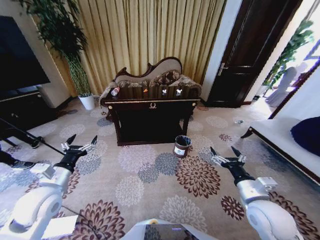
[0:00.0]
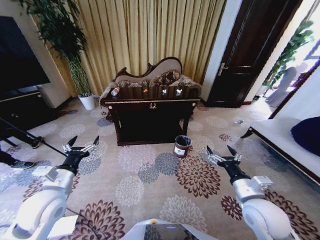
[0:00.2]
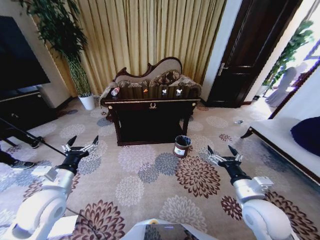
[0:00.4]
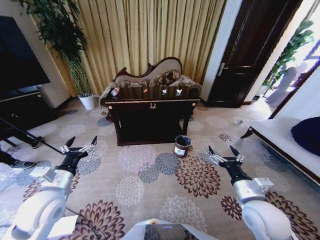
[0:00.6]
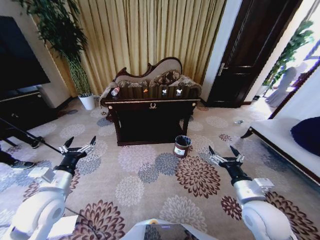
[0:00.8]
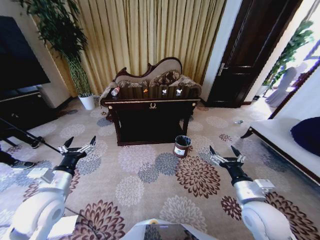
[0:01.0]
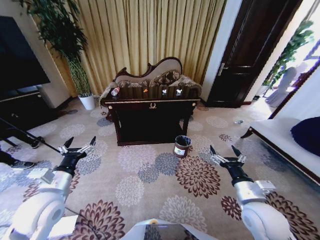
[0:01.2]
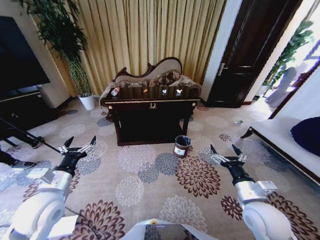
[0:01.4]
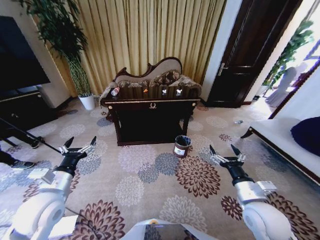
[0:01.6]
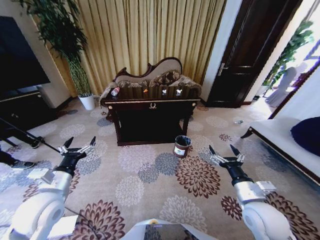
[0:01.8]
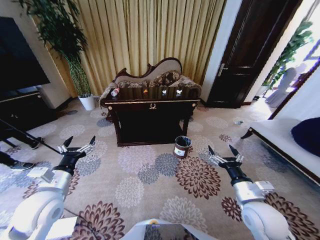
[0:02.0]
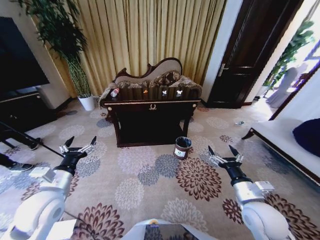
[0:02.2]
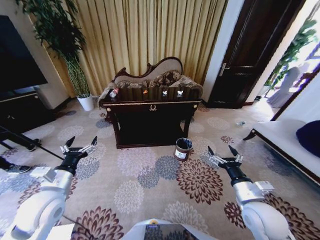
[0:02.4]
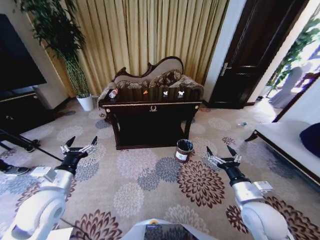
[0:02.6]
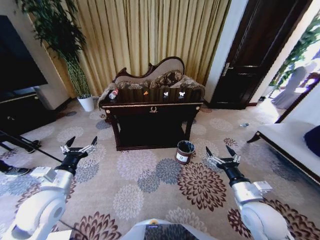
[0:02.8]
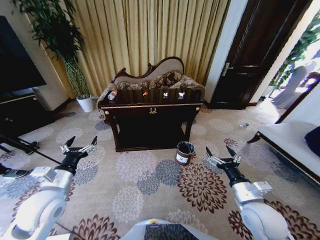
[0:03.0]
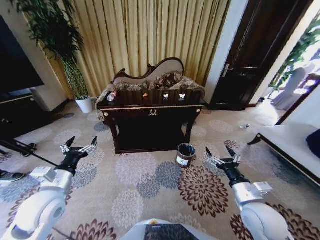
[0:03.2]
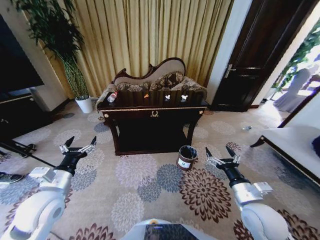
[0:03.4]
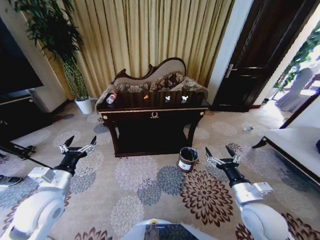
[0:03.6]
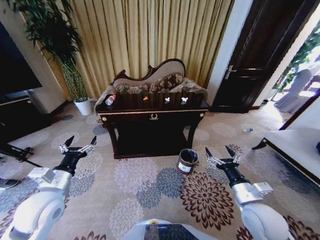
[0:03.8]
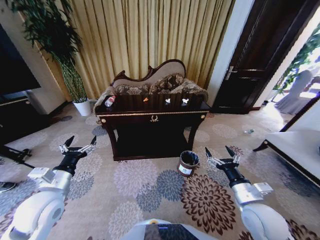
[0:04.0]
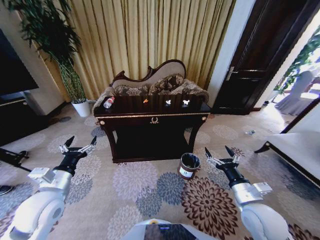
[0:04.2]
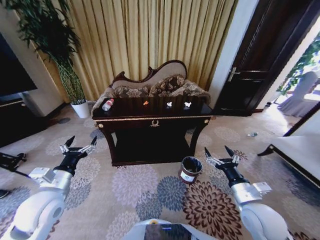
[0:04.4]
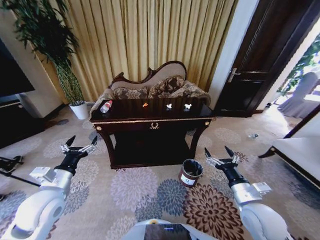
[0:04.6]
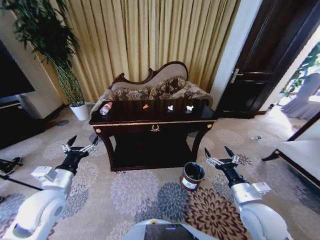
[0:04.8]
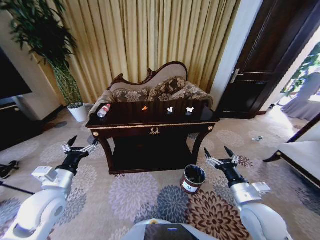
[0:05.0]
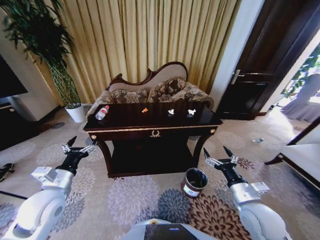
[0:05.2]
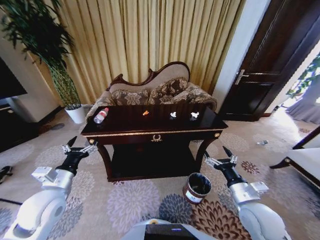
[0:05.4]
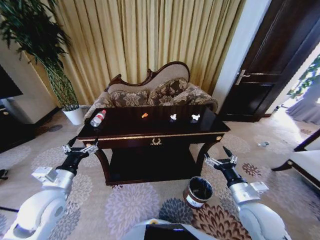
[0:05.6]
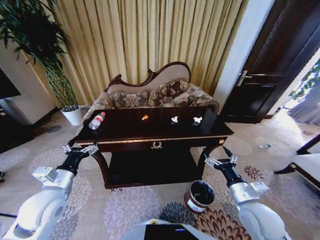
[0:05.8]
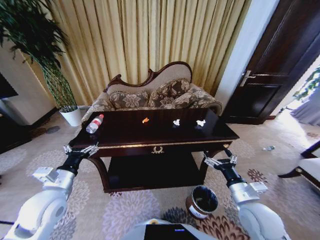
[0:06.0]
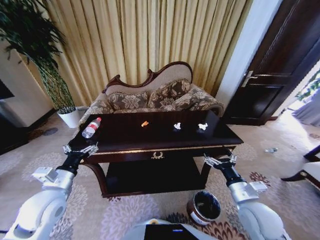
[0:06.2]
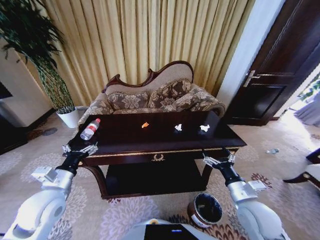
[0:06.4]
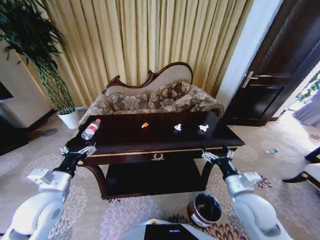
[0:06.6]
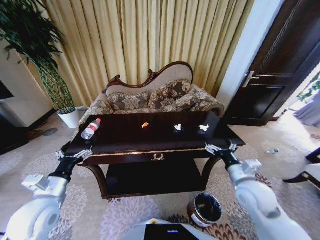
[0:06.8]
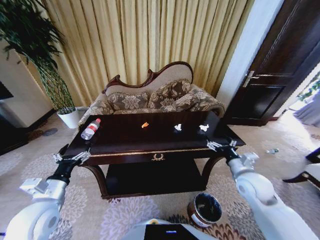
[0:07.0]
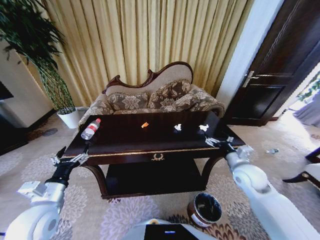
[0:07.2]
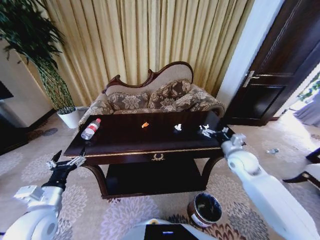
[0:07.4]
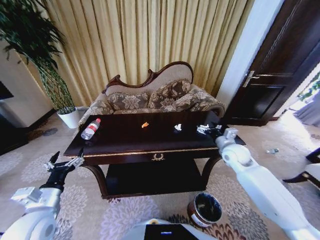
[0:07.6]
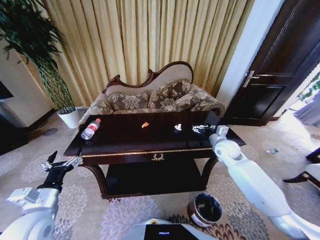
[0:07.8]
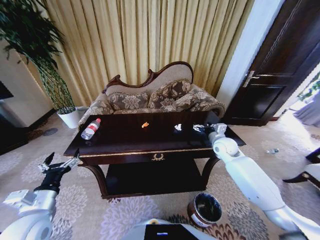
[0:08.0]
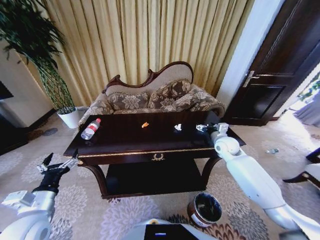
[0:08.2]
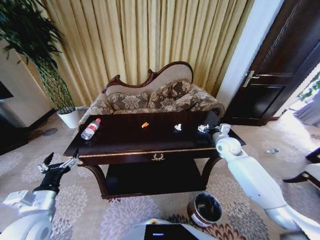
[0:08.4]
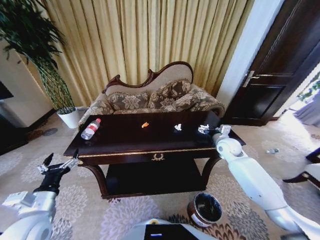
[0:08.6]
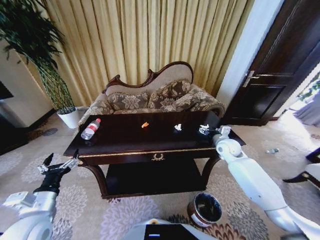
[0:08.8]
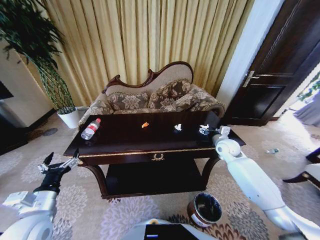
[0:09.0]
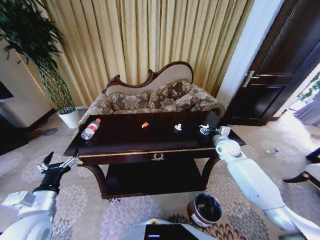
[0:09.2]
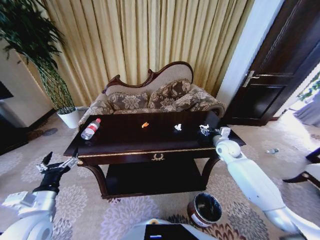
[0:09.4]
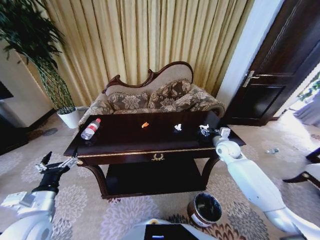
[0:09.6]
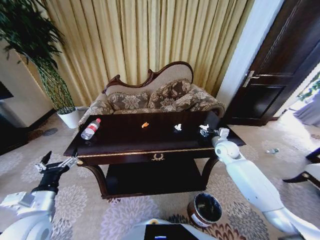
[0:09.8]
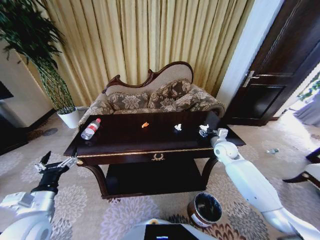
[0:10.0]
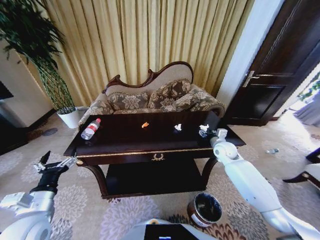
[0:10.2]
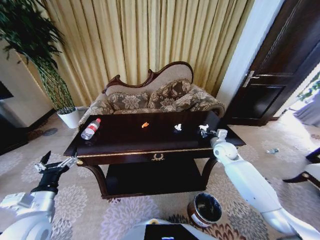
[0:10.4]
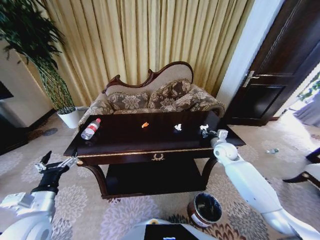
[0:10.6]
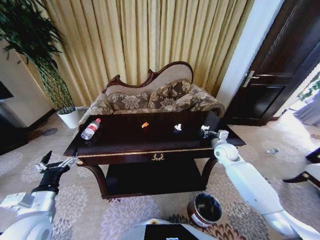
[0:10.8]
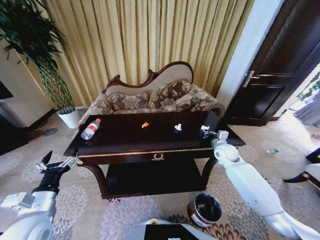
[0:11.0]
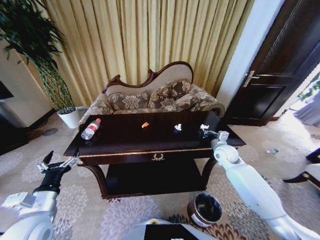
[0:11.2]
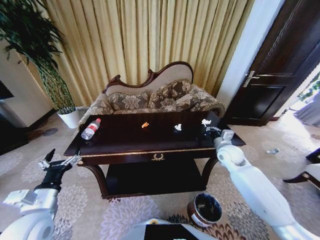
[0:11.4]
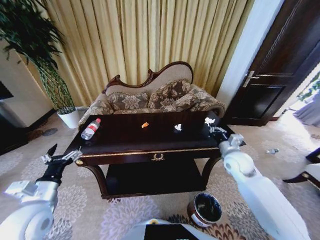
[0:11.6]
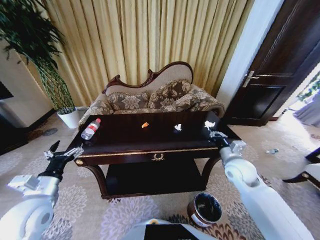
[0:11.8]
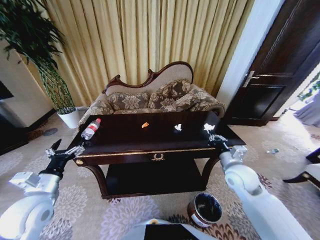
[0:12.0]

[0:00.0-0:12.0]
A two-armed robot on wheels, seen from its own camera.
Task of the whole recording: Move to the front of the table and place the trash on the table into the trash bin.
0:06.0 to 0:07.6: The right gripper travels forward by some 25 cm. The left gripper moves backward, some 5 cm.
0:07.6 to 0:09.0: The right gripper moves about 5 cm.
0:09.0 to 0:10.4: The right gripper closes up.
0:10.4 to 0:12.0: The right gripper heads backward, covering some 15 cm, and closes up; the left gripper moves some 5 cm.

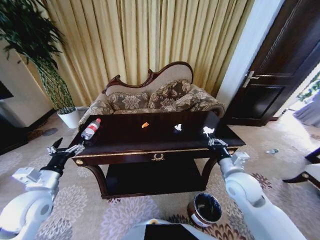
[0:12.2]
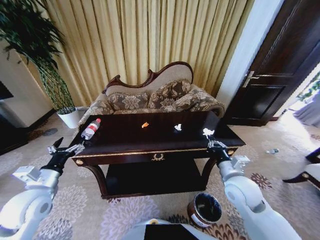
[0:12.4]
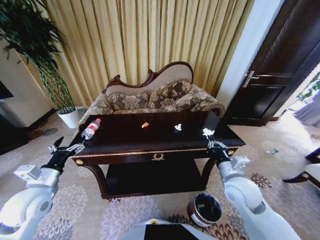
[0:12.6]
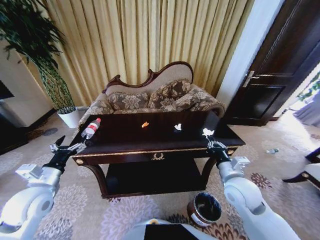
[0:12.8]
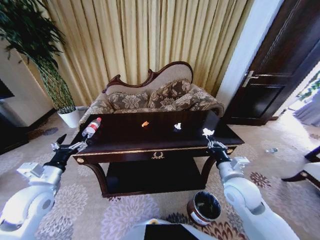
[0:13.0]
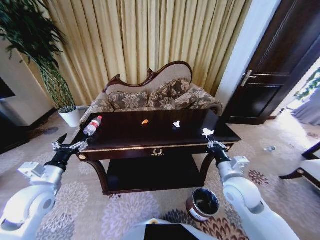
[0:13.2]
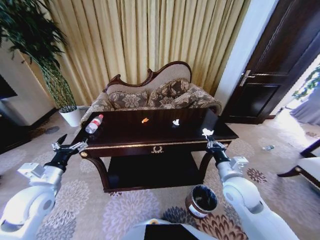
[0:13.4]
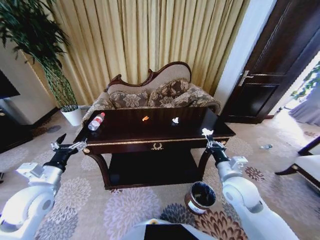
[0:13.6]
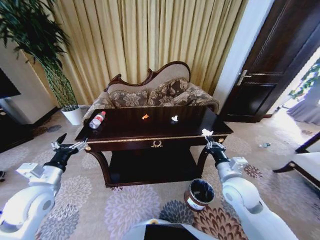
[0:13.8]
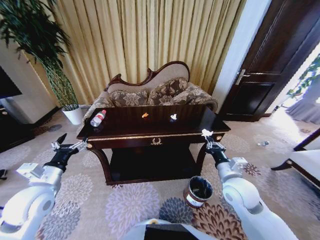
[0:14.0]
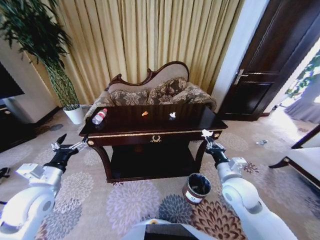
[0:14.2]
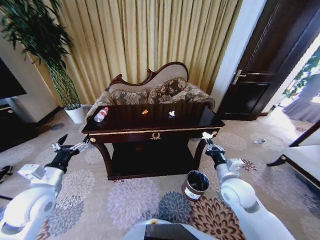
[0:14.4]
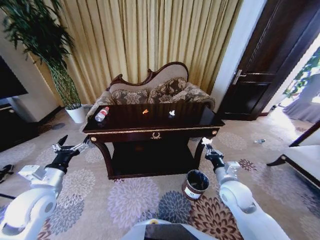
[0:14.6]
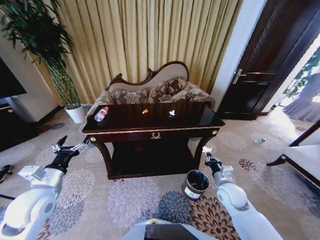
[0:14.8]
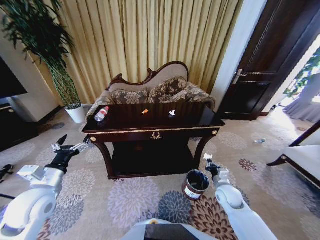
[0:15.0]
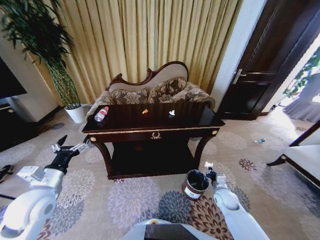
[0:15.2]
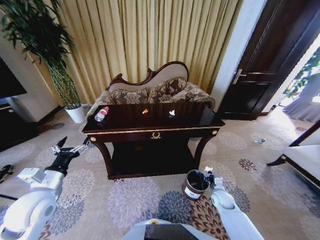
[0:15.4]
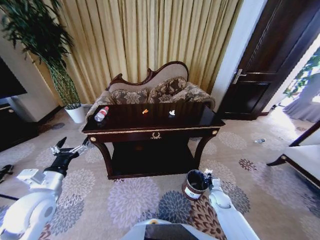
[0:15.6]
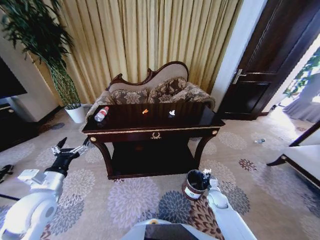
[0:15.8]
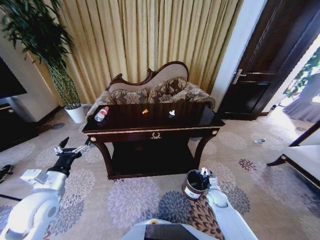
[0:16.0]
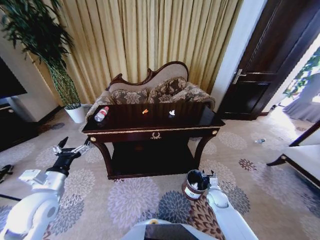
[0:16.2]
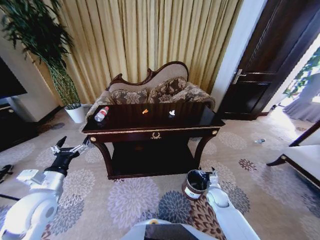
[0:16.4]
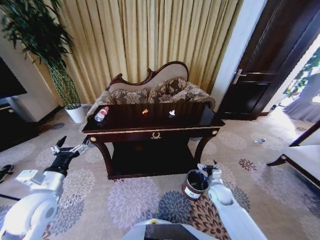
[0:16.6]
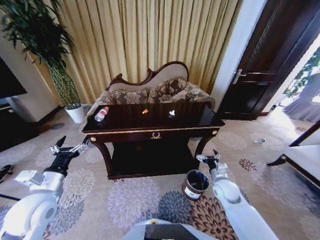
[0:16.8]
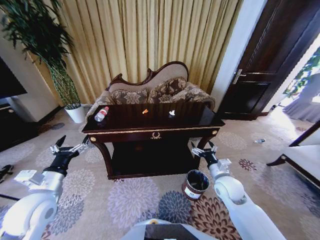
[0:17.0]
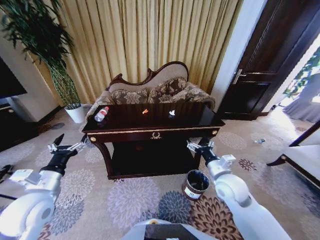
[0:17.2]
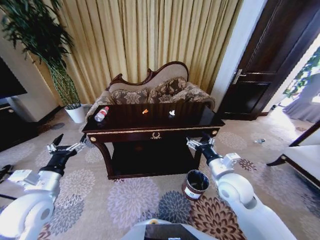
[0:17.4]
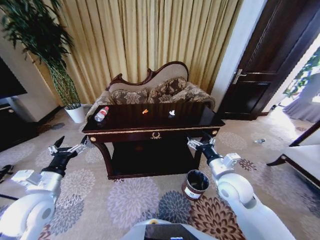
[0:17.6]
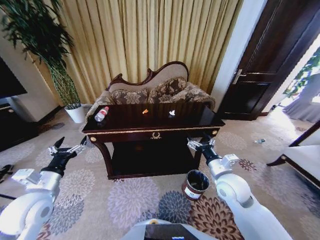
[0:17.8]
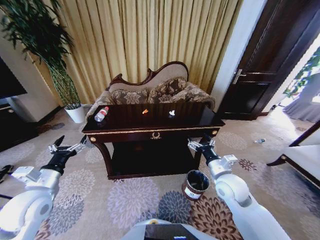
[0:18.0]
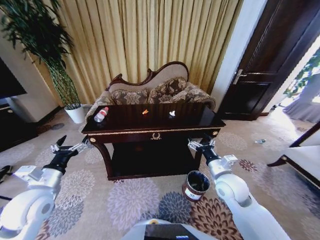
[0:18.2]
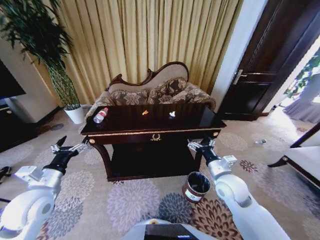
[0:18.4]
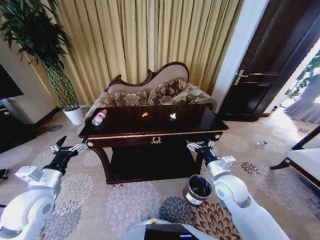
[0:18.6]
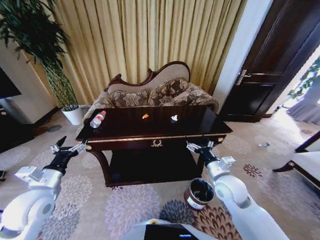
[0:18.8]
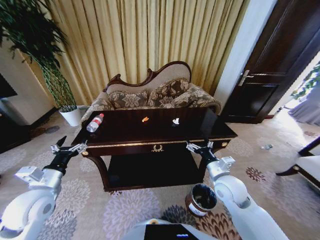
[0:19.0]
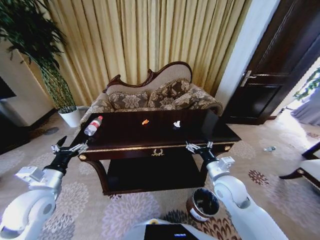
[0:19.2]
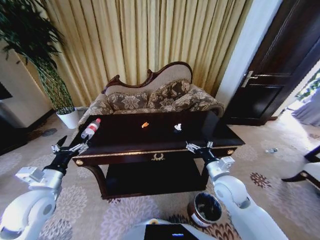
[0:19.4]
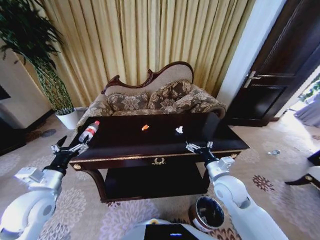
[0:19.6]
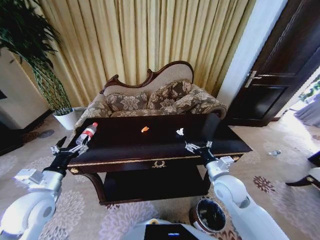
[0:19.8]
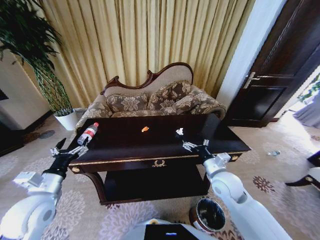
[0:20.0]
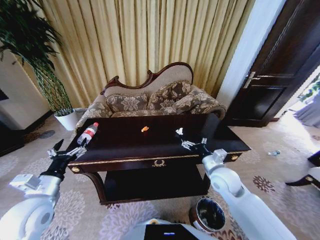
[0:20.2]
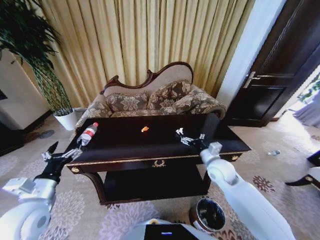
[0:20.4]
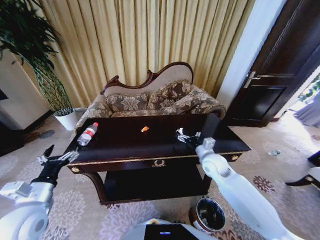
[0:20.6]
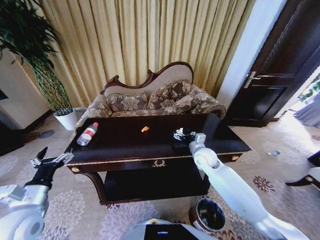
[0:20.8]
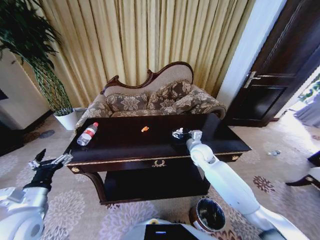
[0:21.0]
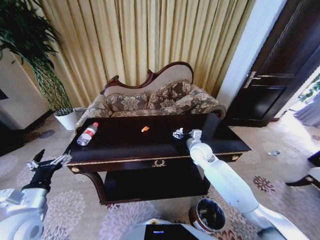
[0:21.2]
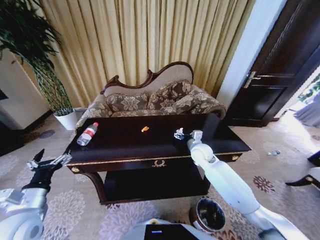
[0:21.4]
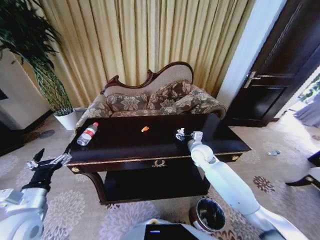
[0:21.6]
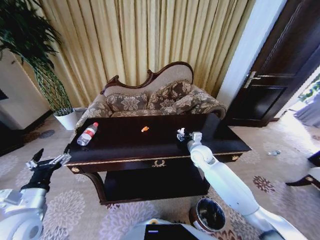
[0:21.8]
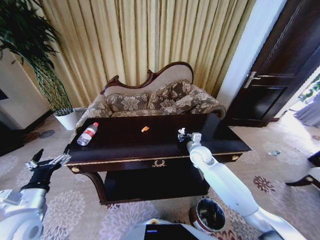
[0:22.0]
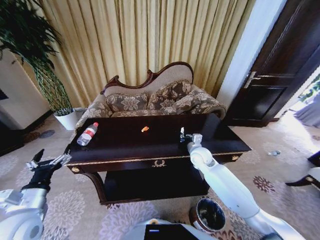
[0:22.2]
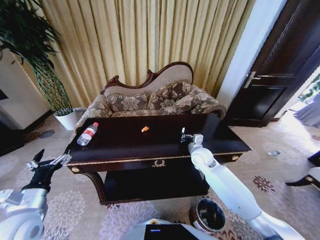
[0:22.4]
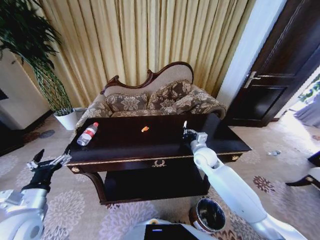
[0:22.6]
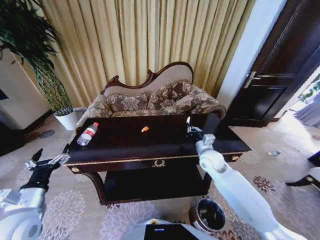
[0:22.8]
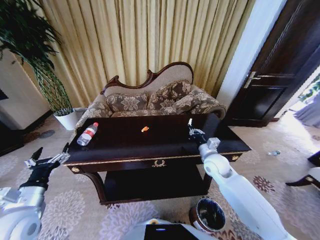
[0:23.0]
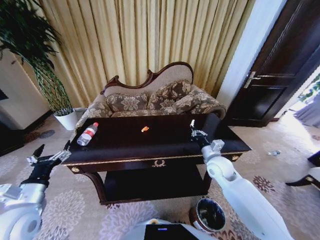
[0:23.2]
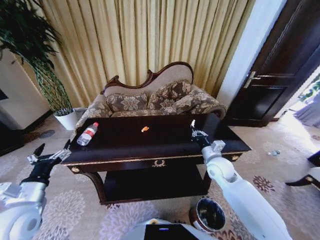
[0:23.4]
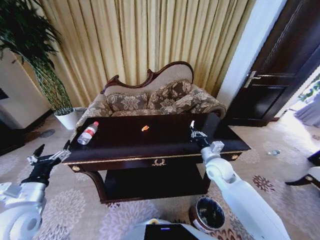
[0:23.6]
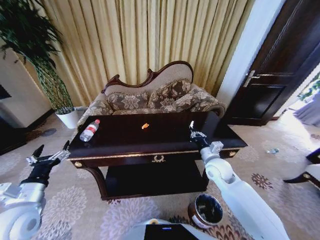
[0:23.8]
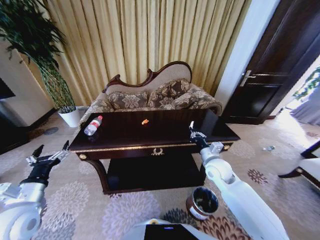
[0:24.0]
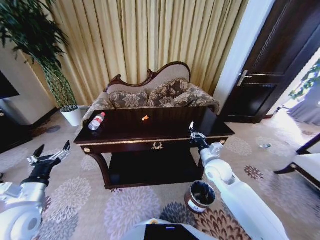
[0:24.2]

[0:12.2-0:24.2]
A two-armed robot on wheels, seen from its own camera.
Task of the whole recording: Move to the front of the table and place the trash on the table into the trash bin.
0:13.8 to 0:15.2: The right gripper moves downward, about 20 cm.
0:15.2 to 0:16.6: The right gripper opens up.
0:16.6 to 0:18.2: The right gripper heads upward, covering approximately 20 cm.
0:19.8 to 0:21.2: The right gripper travels forward by roughly 15 cm; the left gripper changes place by approximately 5 cm.
0:21.2 to 0:22.6: The right gripper closes.
0:22.6 to 0:24.2: The right gripper travels backward by about 5 cm.
